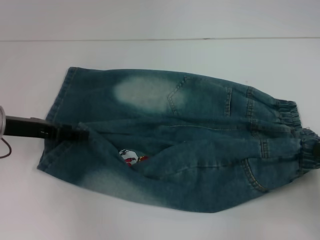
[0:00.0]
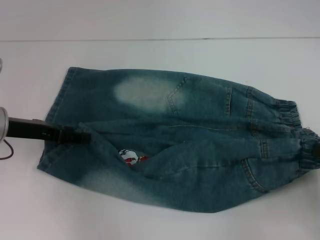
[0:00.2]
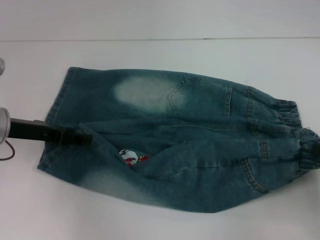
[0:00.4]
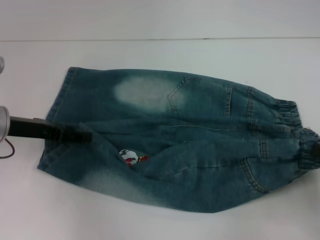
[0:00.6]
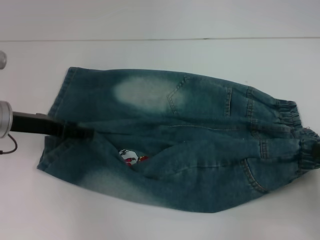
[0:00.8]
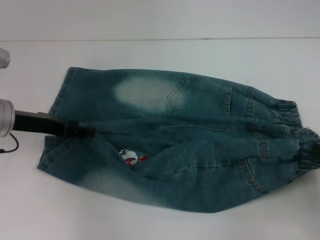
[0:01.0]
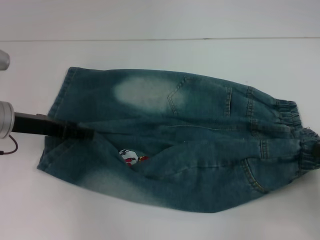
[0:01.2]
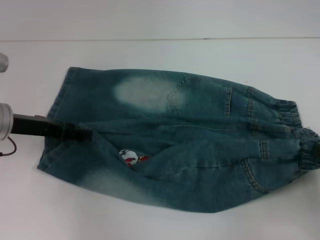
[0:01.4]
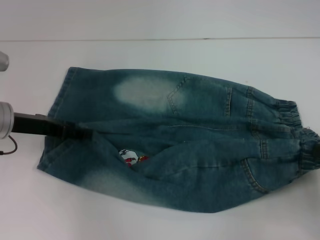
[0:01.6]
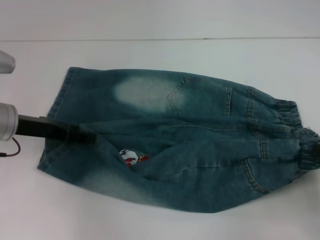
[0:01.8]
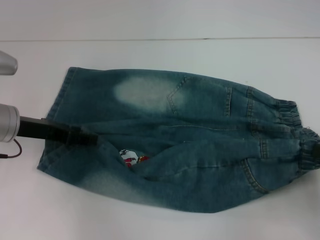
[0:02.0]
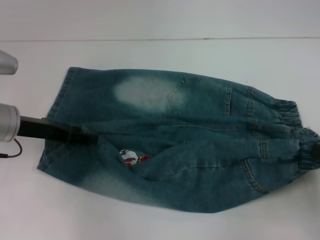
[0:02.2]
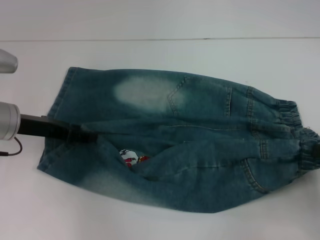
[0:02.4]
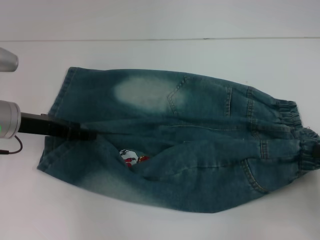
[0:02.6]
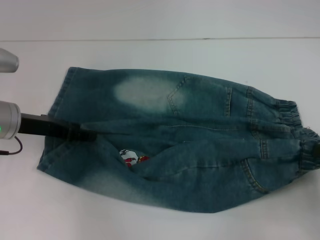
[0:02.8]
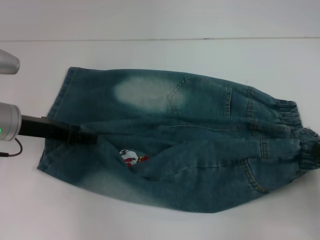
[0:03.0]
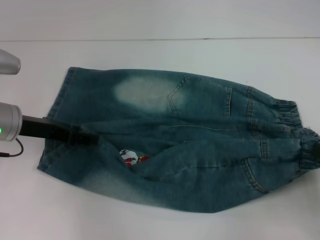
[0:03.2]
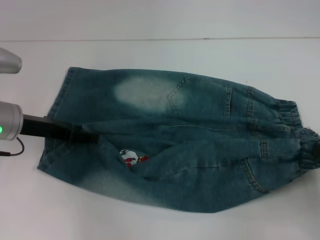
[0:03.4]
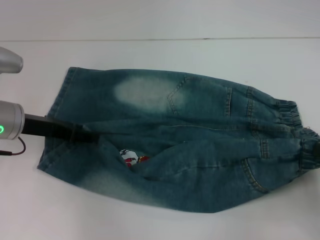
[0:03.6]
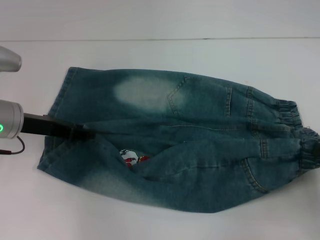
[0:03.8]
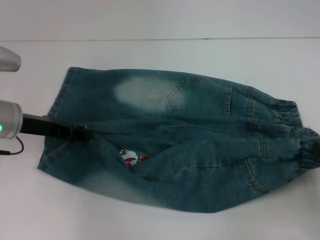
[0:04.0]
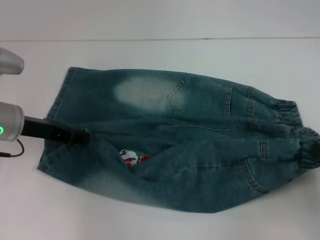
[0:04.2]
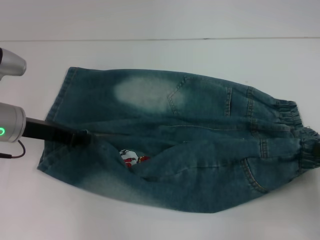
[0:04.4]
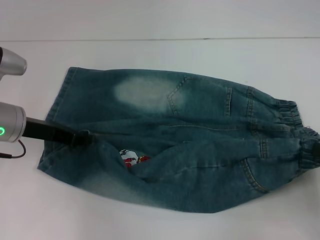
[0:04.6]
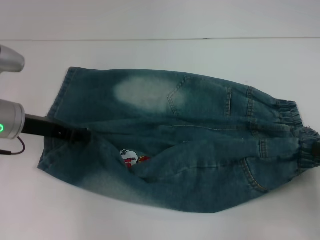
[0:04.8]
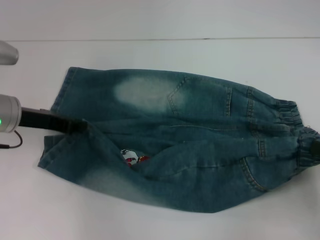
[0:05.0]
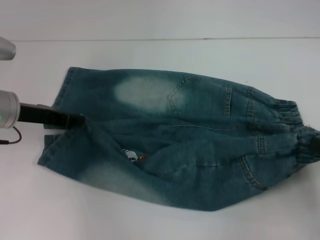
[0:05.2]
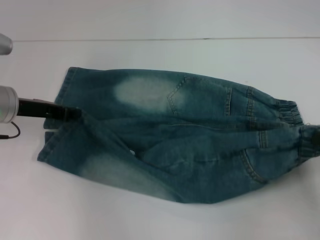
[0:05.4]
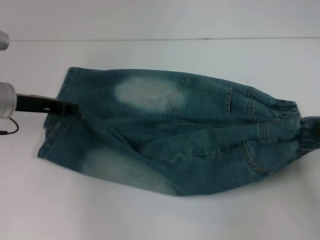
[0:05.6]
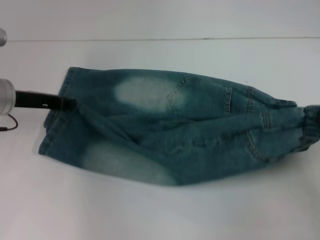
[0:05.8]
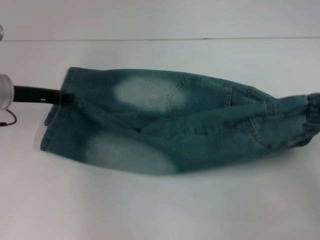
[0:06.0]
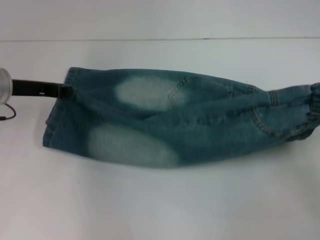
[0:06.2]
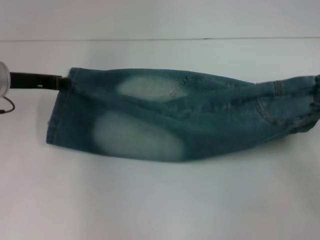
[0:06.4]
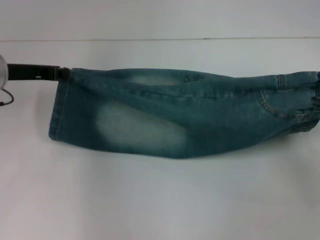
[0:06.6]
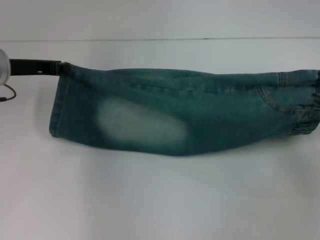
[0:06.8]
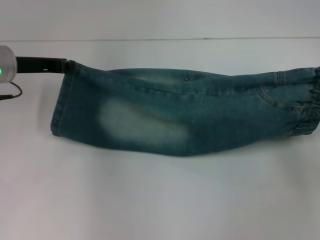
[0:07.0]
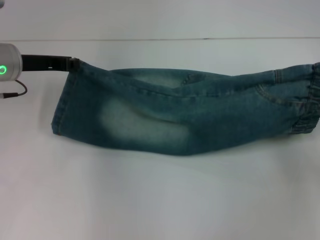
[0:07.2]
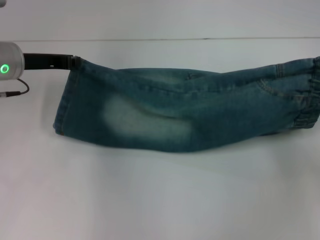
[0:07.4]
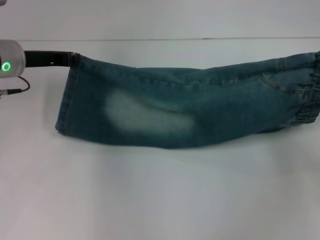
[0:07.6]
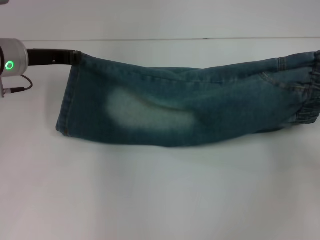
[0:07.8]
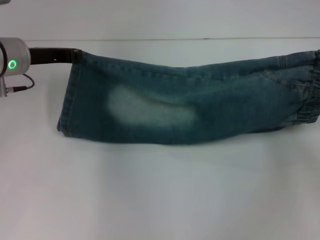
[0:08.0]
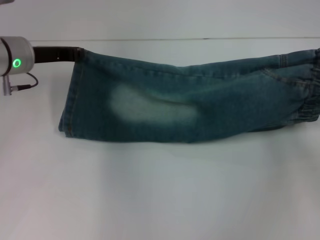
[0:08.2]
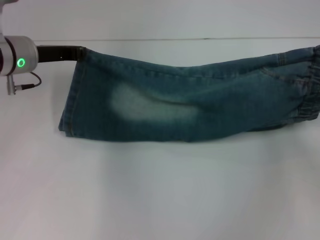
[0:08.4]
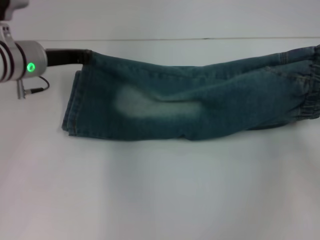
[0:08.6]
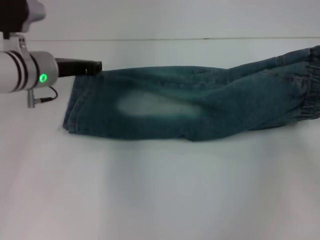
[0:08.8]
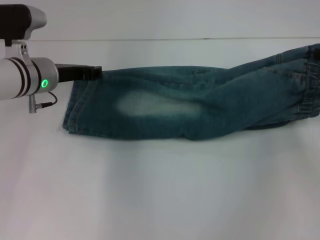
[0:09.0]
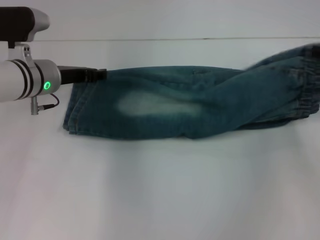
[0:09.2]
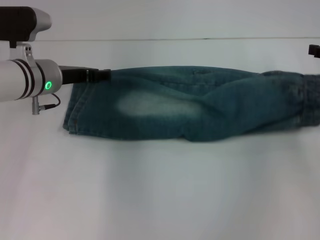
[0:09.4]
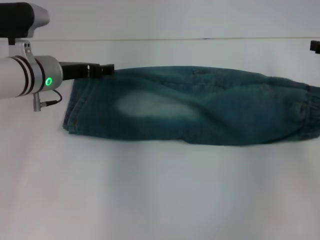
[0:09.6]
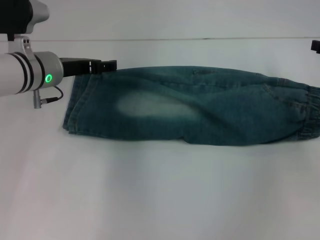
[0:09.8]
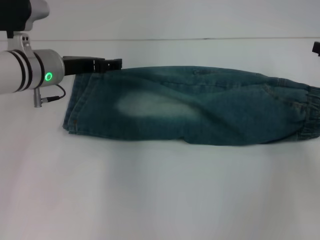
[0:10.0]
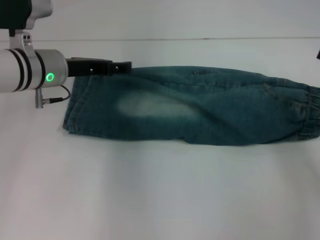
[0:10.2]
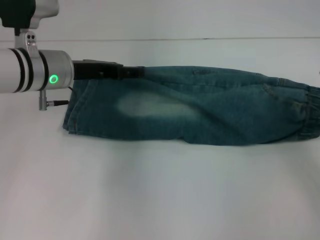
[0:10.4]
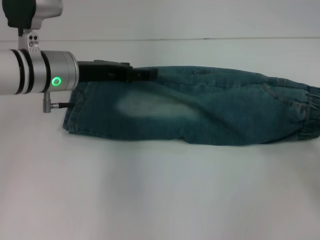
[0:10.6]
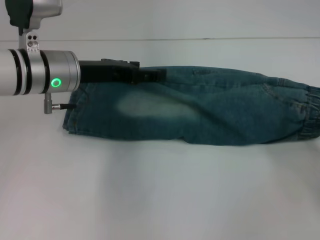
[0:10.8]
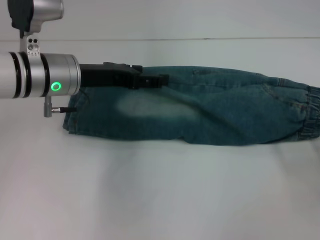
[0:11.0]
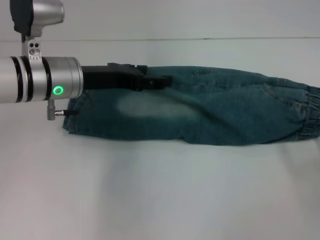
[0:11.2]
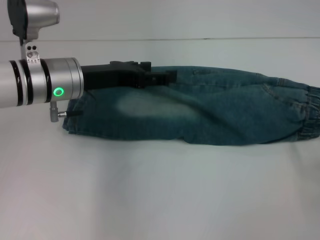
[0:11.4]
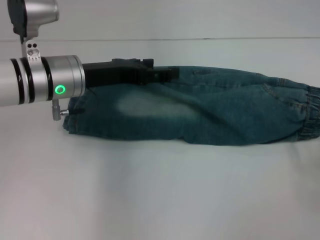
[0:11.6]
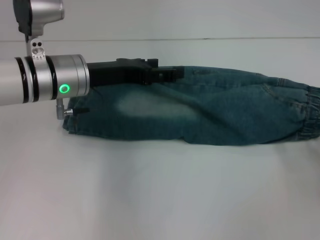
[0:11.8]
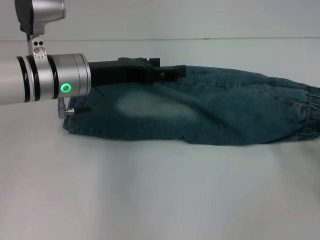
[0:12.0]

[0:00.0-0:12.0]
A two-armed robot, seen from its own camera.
Step, 0.0 to 5.0 s: Grab the lower left pant leg with your left hand.
Step, 5.4 to 10.0 s: Fold upward with your right hand.
0.0 to 1.6 s: There are only small adjustments of the grippers.
1.6 to 3.0 s: Both grippers stay put.
3.0 to 4.4 s: The left gripper closes its fingers.
4.4 to 6.0 s: The right gripper shifts about 5 cm forward.
6.0 to 7.6 s: The right gripper moves forward, approximately 5 cm.
7.6 to 9.0 s: The left gripper changes place by roughly 5 cm.
9.0 to 10.4 s: The right gripper shifts approximately 10 cm backward, and opens. Meanwhile the left gripper opens its fingers.
10.4 to 12.0 s: The right gripper moves downward, some 5 cm.

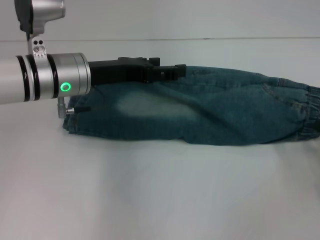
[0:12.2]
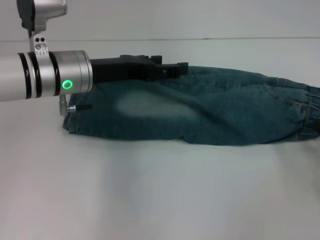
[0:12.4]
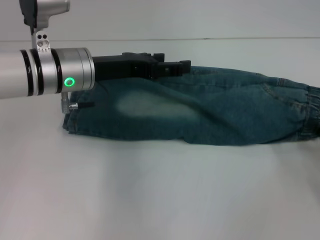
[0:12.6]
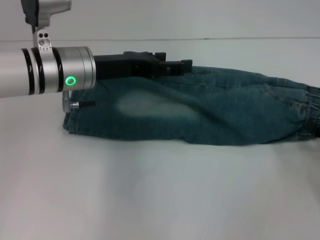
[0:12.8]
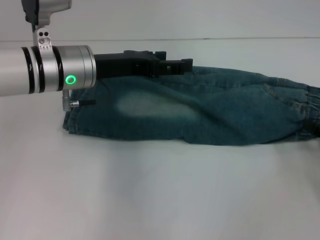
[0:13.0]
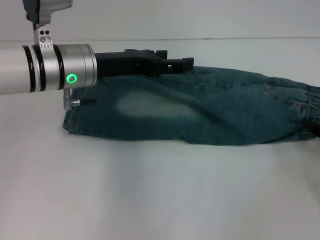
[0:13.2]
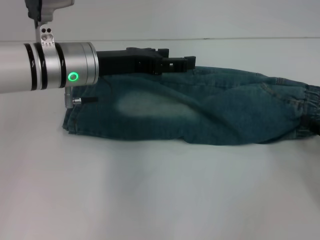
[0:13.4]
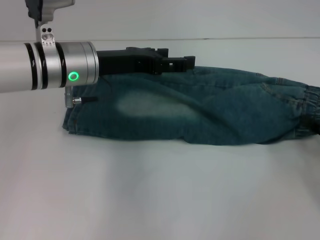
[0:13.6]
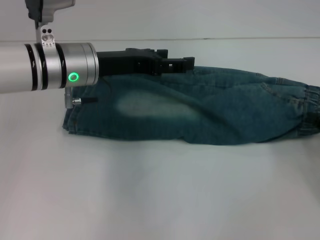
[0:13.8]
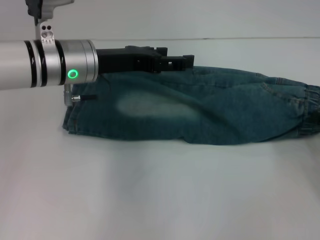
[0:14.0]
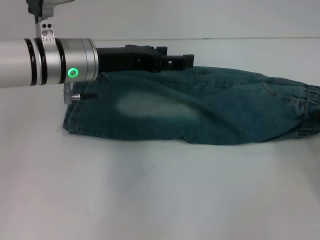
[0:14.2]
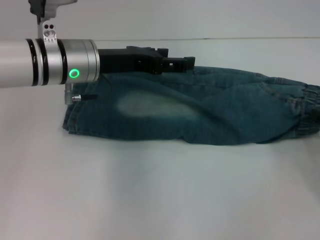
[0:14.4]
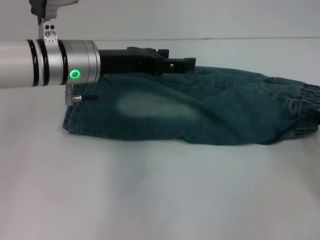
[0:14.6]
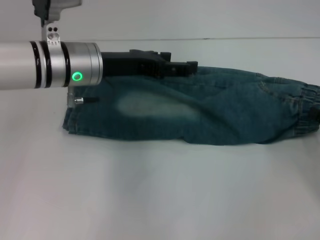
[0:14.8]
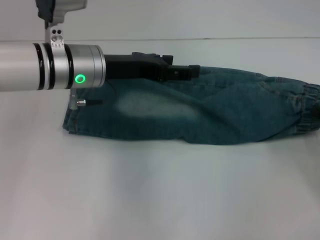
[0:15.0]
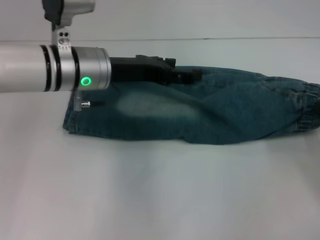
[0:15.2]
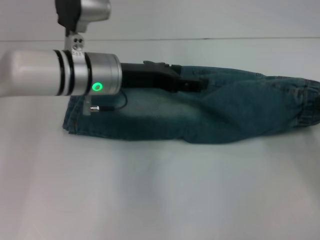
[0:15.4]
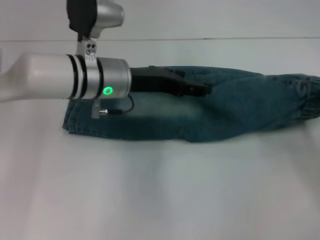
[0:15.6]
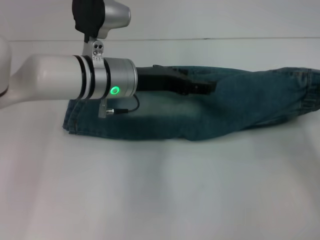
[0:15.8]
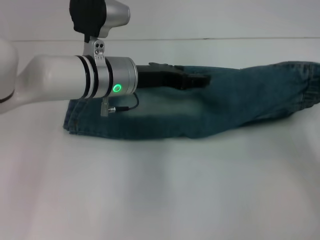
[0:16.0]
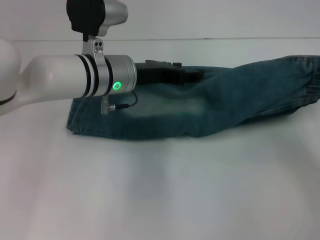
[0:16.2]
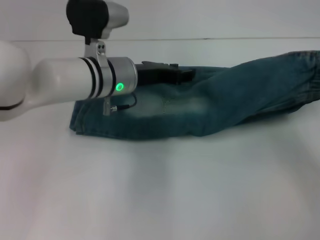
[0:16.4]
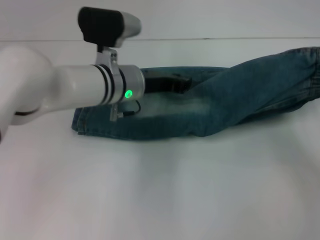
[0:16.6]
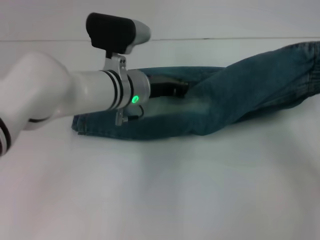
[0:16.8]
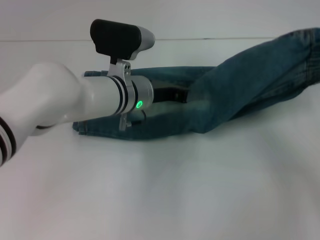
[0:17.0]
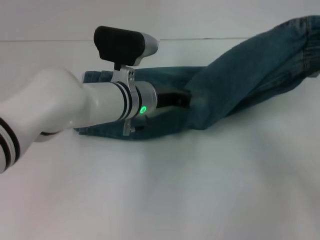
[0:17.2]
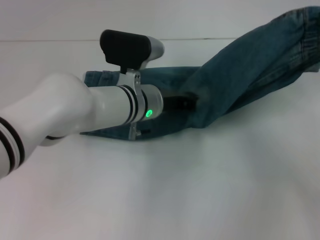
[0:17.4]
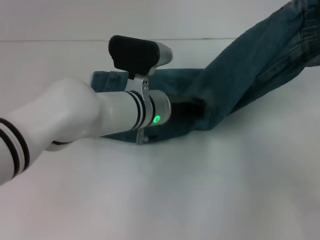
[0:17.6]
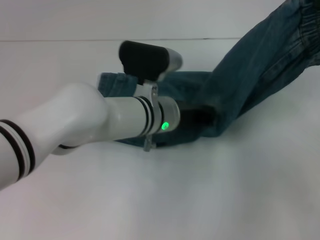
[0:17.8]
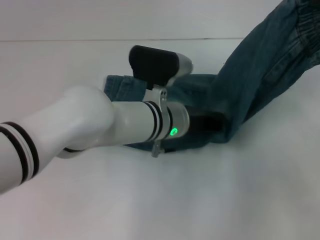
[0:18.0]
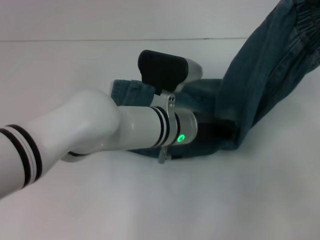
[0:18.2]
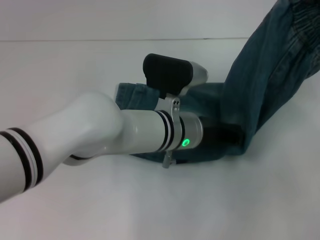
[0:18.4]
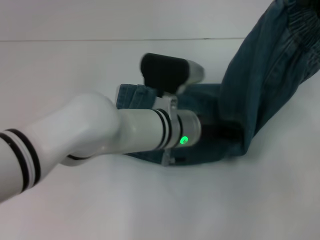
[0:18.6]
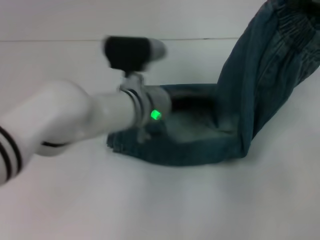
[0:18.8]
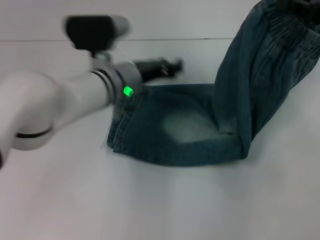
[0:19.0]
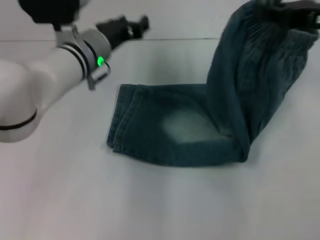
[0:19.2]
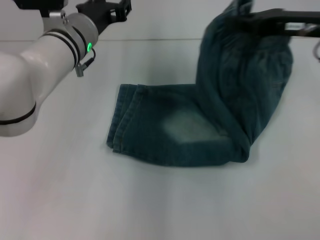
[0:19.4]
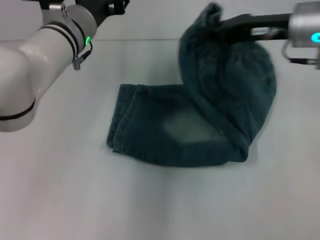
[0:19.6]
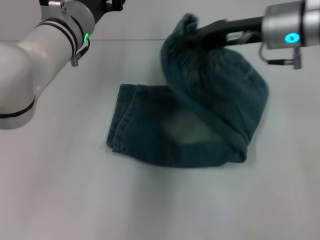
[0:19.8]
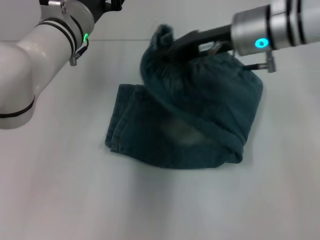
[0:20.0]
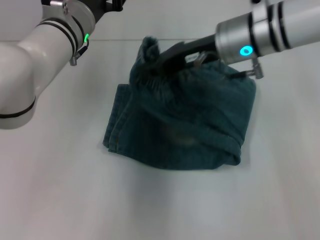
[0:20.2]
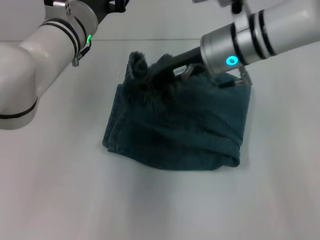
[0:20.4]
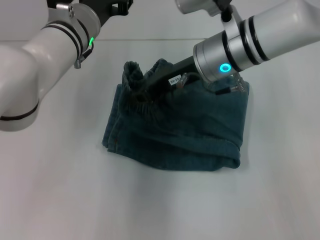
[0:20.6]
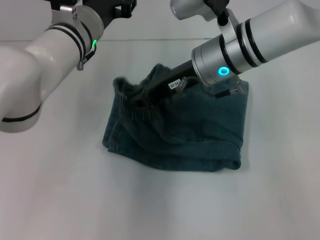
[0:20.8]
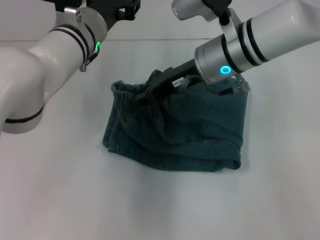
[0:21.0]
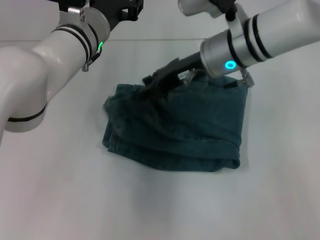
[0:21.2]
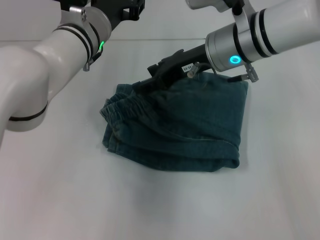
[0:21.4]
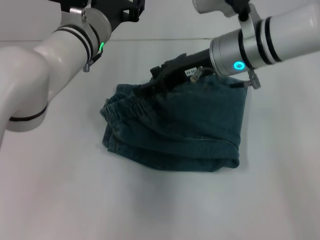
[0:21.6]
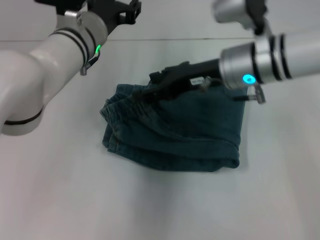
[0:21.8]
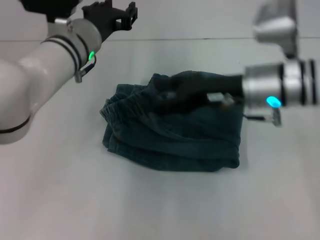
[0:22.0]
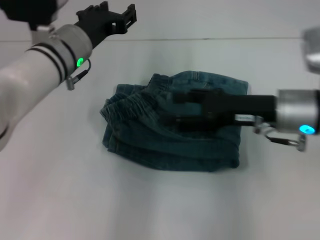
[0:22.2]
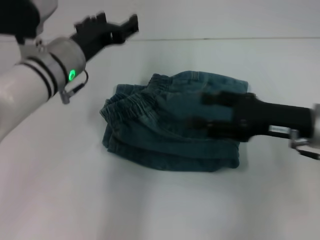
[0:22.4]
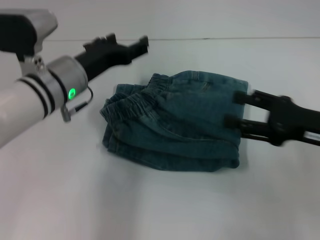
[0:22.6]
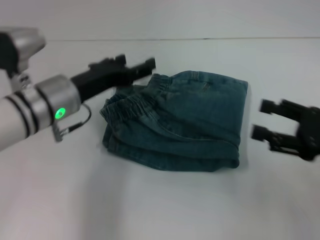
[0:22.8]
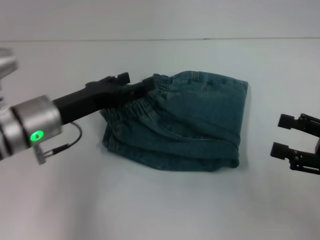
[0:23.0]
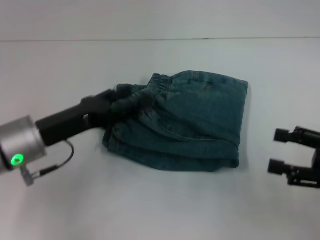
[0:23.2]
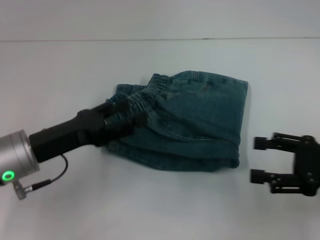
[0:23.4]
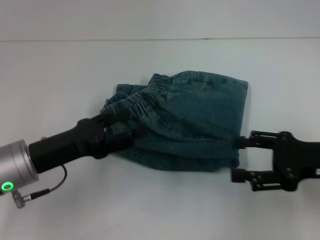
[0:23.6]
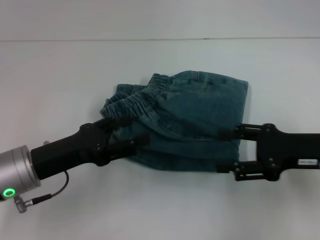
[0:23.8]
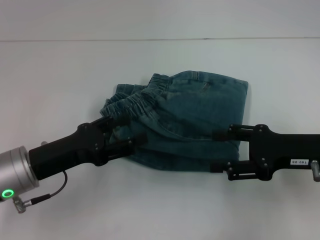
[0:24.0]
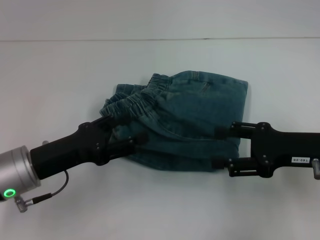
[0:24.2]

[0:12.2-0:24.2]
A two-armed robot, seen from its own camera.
Step, 12.2 to 14.6 s: Grab the waistband with your right hand.
Step, 14.8 to 18.6 s: Press the middle of the pants with your left hand.
Step, 18.8 to 21.4 s: Fold to the left with your right hand.
12.2 to 13.8 s: The grippers move only a little.
13.8 to 15.2 s: The right gripper closes up.
15.2 to 16.6 s: The right gripper heads upward, covering about 5 cm. The left gripper goes some 5 cm to the right, and closes up.
16.6 to 18.2 s: The left gripper moves to the right and backward, approximately 10 cm, and closes its fingers, while the right gripper goes approximately 10 cm upward.
18.2 to 19.8 s: The left gripper heads to the left, forward and upward, covering about 15 cm, and opens its fingers. Meanwhile the right gripper moves to the left and forward, some 20 cm.
19.8 to 21.2 s: The right gripper is displaced to the left by about 5 cm.
21.2 to 22.6 s: The left gripper goes some 5 cm backward. The right gripper moves to the right and backward, roughly 20 cm, and opens its fingers.
22.6 to 24.2 s: The left gripper goes about 10 cm backward and to the left.
